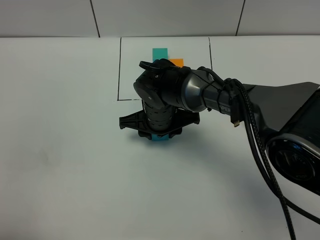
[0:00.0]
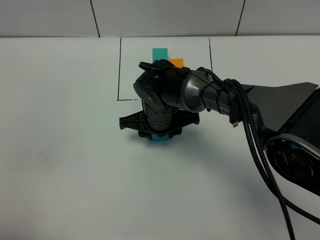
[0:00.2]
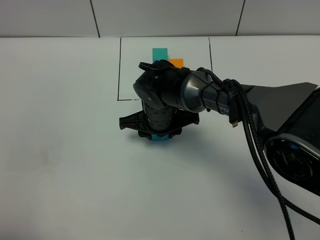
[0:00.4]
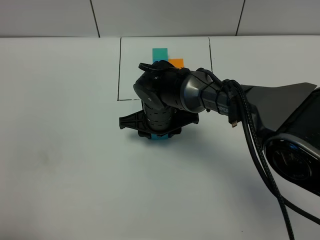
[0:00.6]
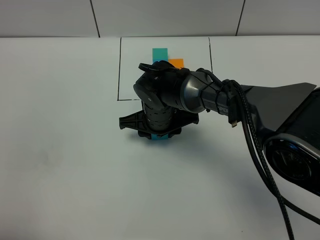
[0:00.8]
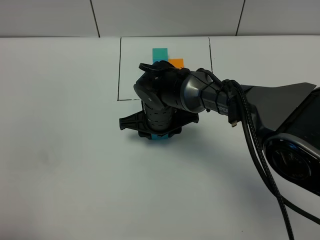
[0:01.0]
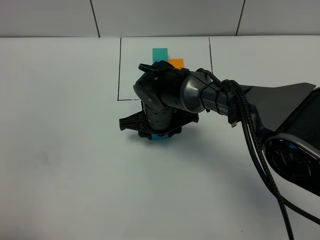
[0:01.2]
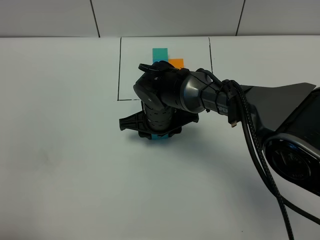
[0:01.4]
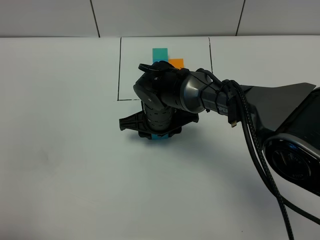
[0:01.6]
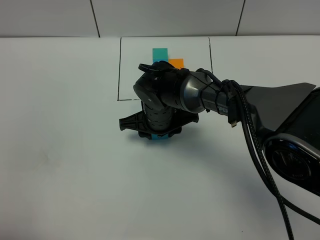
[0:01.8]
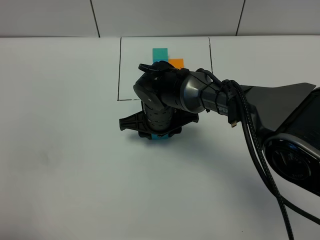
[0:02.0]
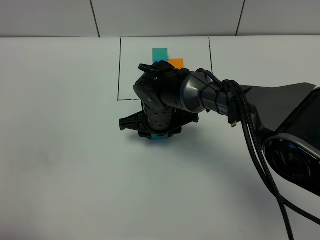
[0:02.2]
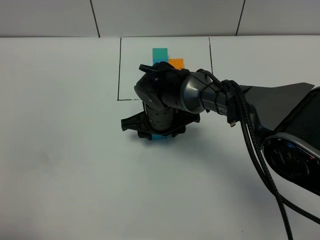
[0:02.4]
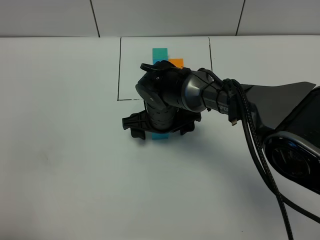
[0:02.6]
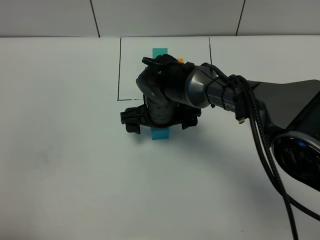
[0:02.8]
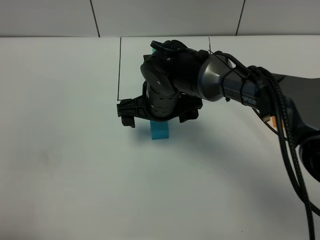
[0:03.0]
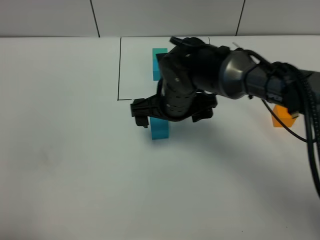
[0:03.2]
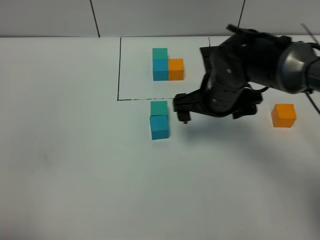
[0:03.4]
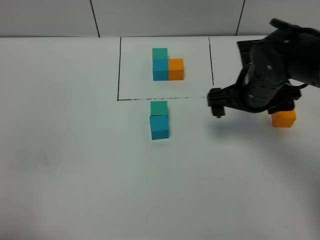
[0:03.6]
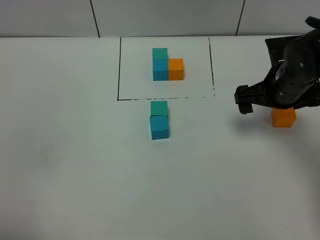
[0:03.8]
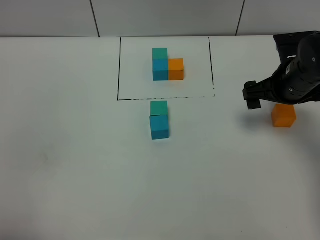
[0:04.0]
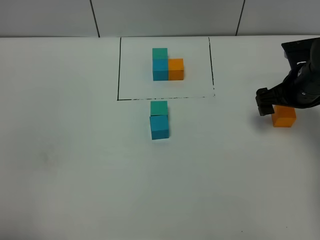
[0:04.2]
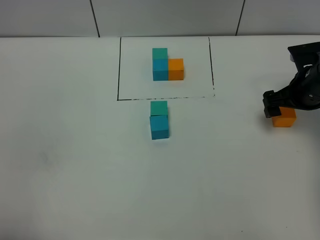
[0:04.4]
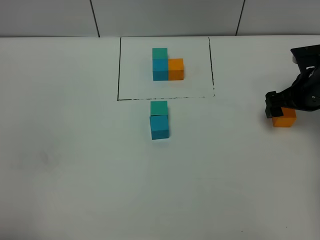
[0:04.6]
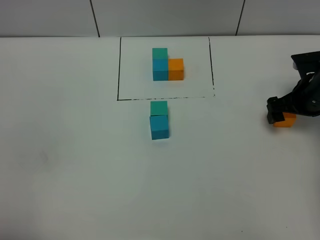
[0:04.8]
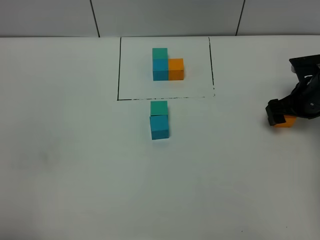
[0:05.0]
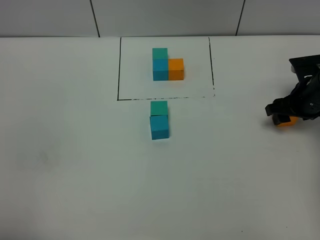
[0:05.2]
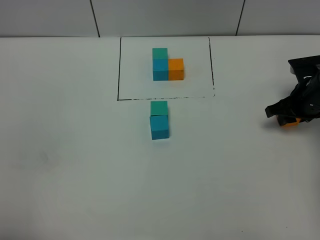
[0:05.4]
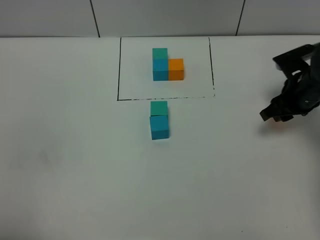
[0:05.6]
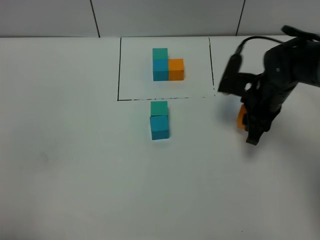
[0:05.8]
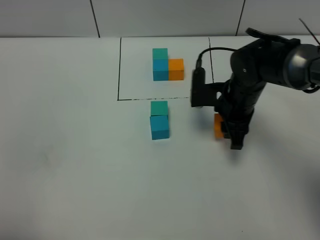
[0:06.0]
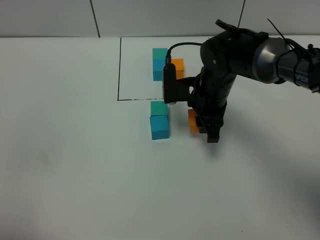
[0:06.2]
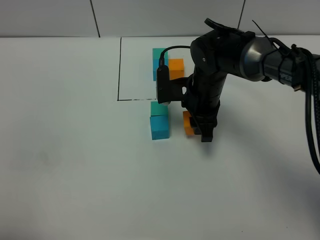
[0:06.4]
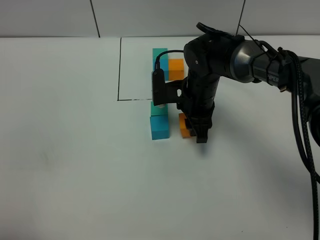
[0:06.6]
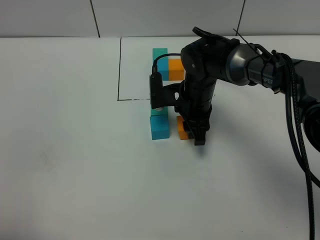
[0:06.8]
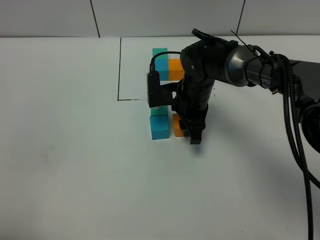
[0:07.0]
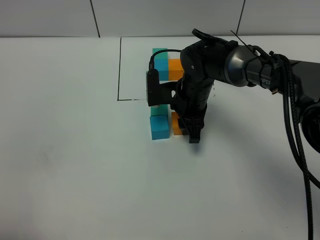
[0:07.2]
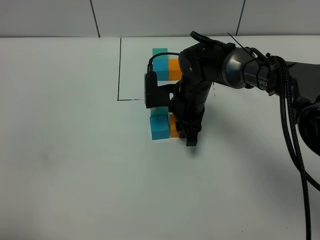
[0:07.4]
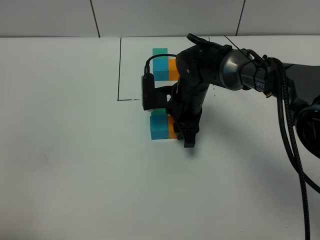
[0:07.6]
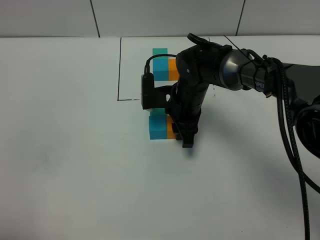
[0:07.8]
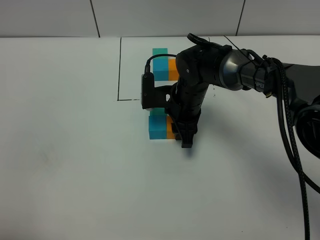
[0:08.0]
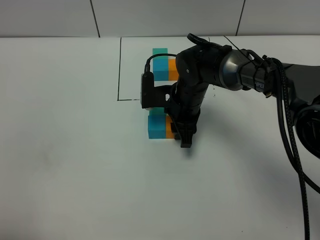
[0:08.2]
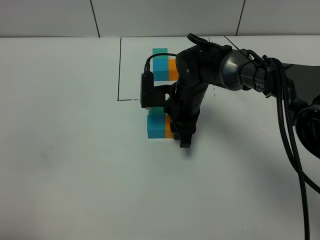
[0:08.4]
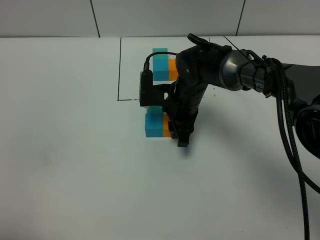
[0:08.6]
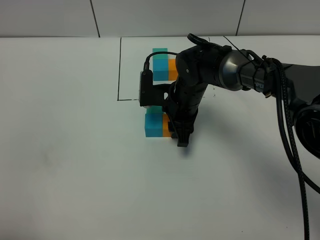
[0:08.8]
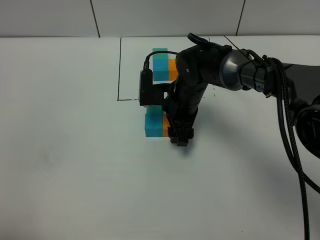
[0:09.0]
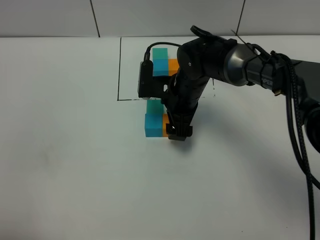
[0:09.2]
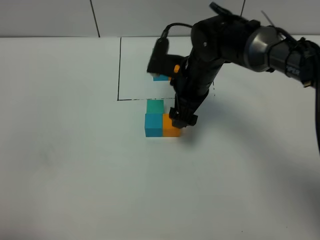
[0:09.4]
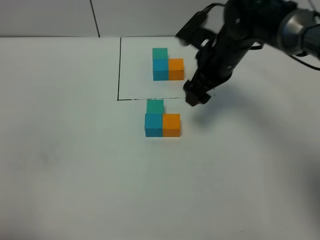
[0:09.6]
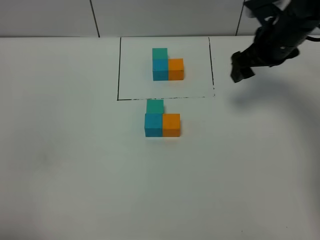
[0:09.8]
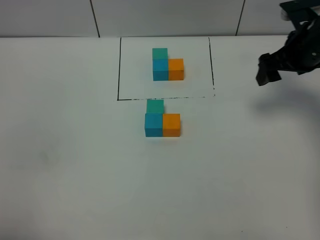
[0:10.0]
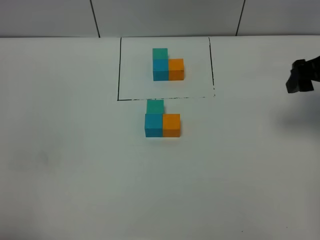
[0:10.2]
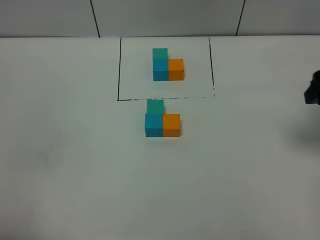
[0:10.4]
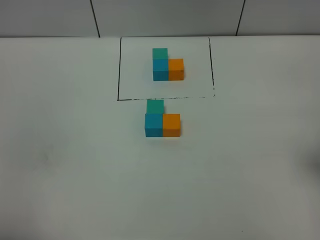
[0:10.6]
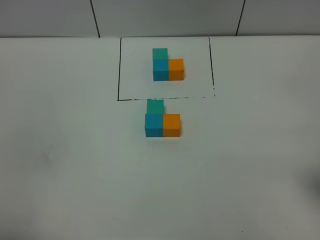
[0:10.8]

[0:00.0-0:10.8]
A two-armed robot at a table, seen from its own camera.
Task of the whole recording: According to the building block template in front, assemble the scattered blocks together.
Step, 0:00.0 to 0:02.6: Put the blue build block on the behind of the green build block.
Step, 0:02.8 to 0:09.2: Put the red build block on the right of the blue build block.
0:00.0 to 0:01.6: Both grippers stay put.
0:01.6 to 0:03.0: The right gripper moves upward, about 5 cm, and opens up.
0:03.0 to 0:04.6: The right gripper is displaced to the right by some 30 cm.
0:04.6 to 0:06.2: The right gripper moves to the left, roughly 20 cm, and closes its fingers.
0:06.2 to 0:07.8: The right gripper shifts by about 5 cm.
0:07.8 to 0:09.2: The right gripper opens its fingers.
0:09.2 to 0:10.8: The right gripper is displaced backward, to the right and upward by roughly 35 cm.

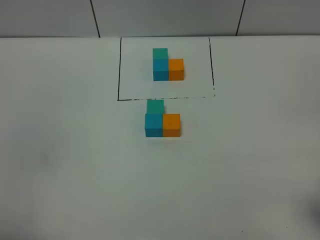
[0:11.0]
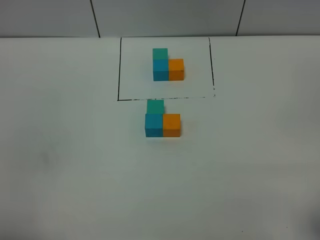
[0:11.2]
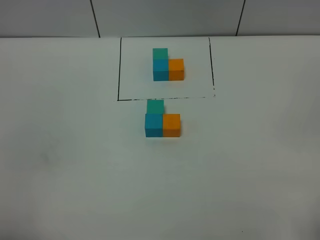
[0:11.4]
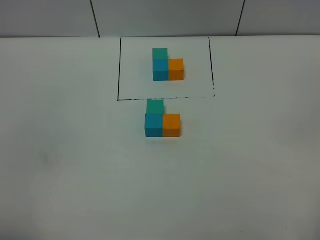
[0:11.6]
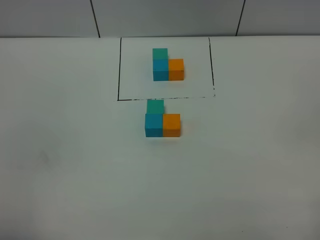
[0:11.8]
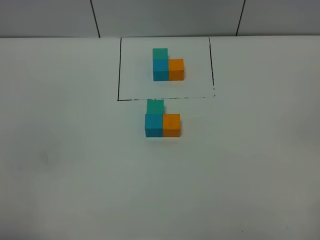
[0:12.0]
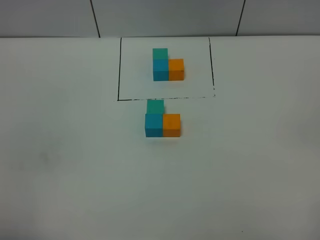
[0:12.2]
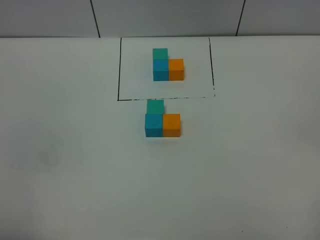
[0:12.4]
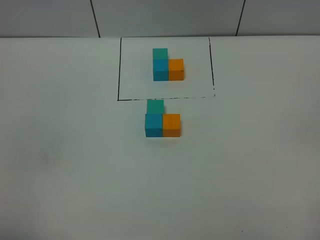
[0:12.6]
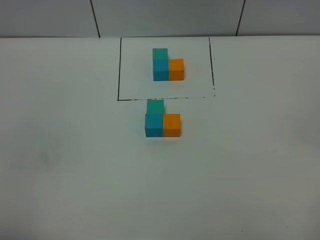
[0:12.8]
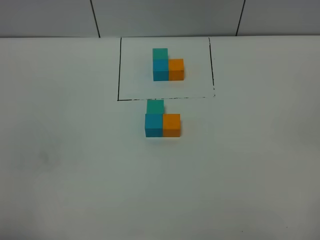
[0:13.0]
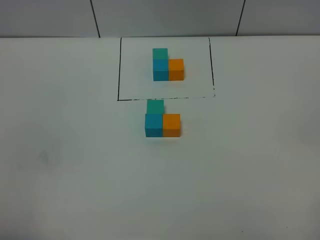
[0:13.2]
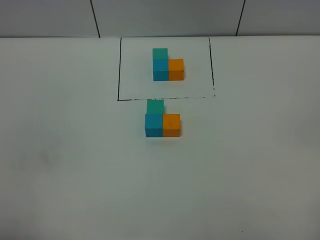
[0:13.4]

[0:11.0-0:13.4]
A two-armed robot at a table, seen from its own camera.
Task of the whole recording: According to the building block template in front, assemble the scattered blocks together.
0:12.2 to 0:13.4: Both grippers stay about where they are.
